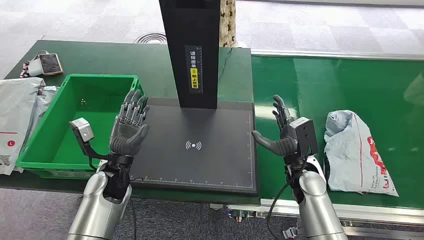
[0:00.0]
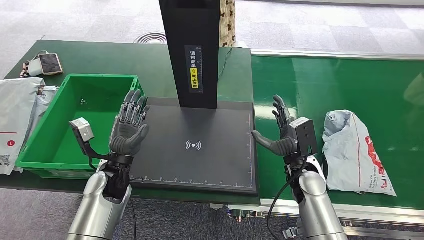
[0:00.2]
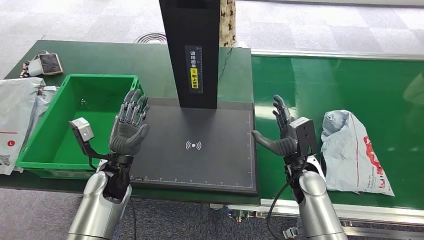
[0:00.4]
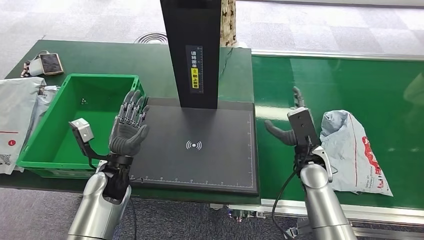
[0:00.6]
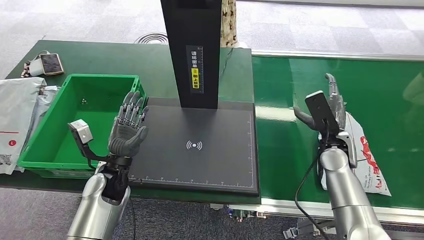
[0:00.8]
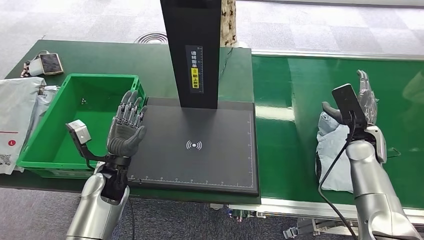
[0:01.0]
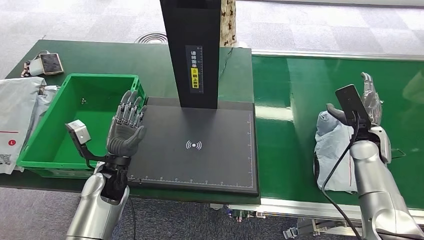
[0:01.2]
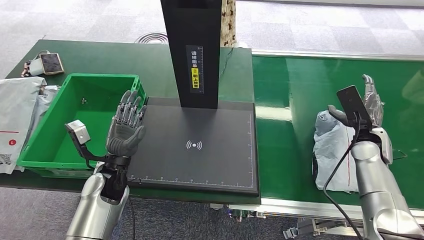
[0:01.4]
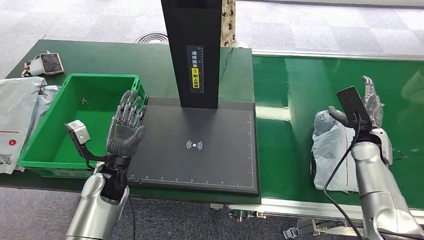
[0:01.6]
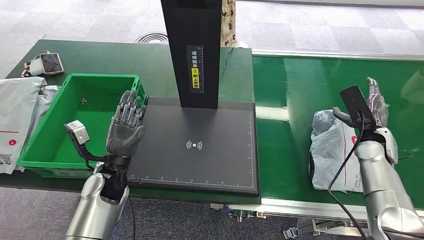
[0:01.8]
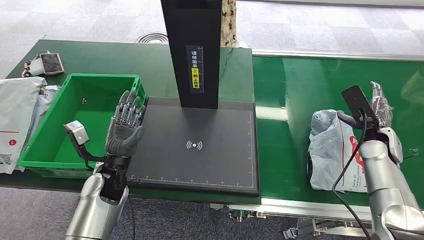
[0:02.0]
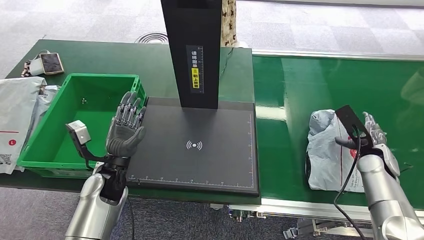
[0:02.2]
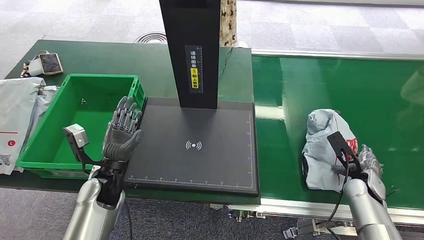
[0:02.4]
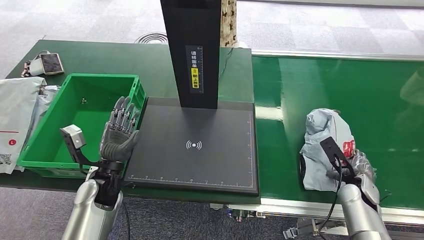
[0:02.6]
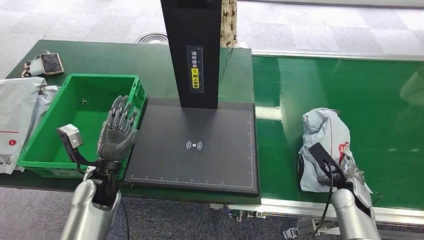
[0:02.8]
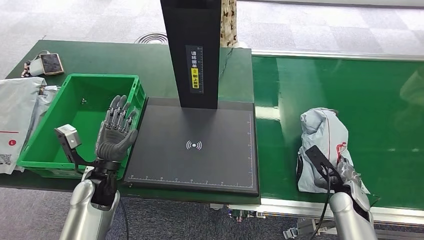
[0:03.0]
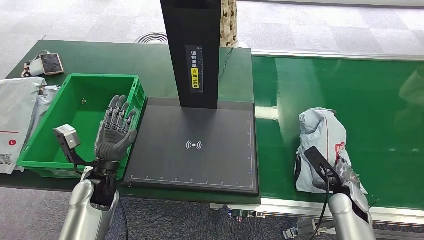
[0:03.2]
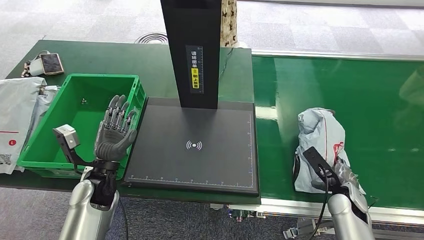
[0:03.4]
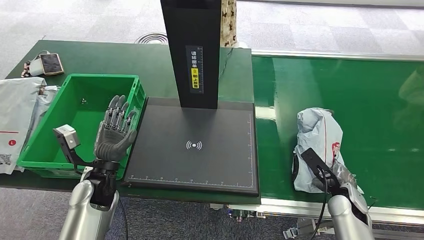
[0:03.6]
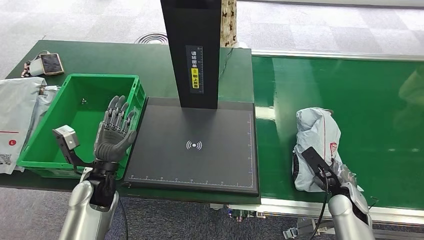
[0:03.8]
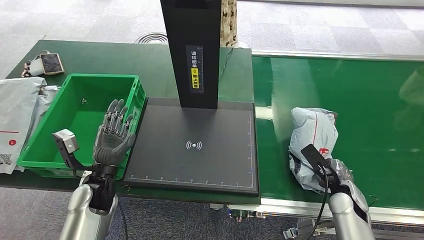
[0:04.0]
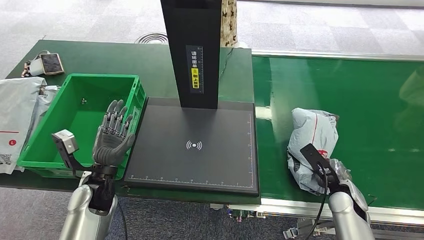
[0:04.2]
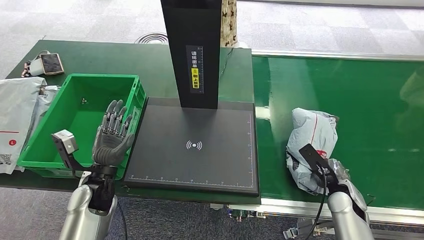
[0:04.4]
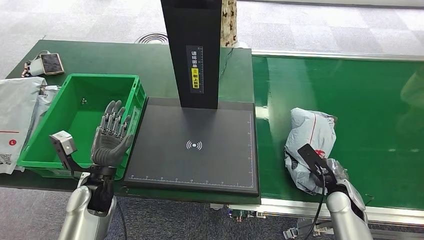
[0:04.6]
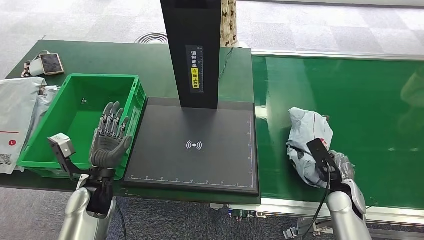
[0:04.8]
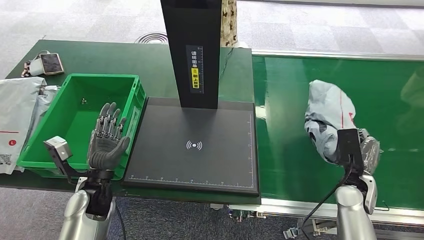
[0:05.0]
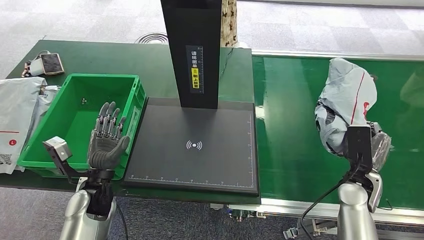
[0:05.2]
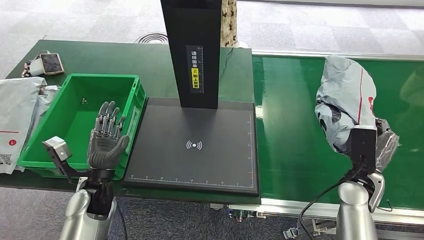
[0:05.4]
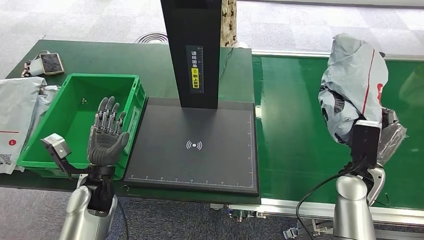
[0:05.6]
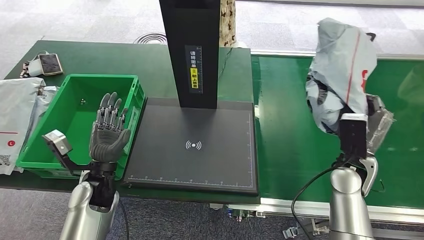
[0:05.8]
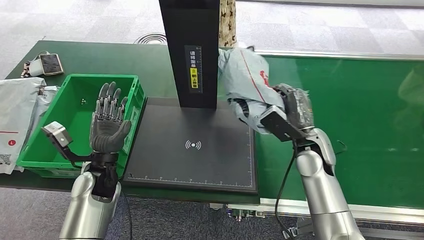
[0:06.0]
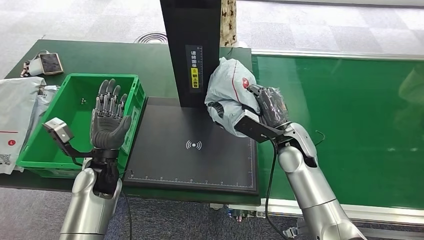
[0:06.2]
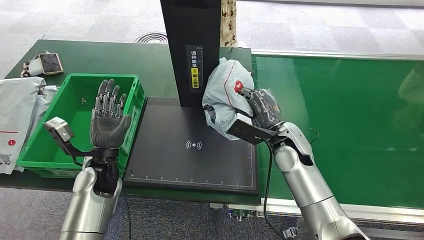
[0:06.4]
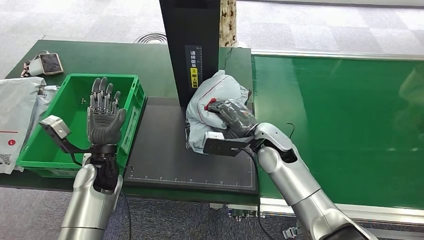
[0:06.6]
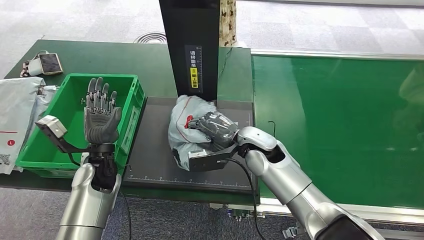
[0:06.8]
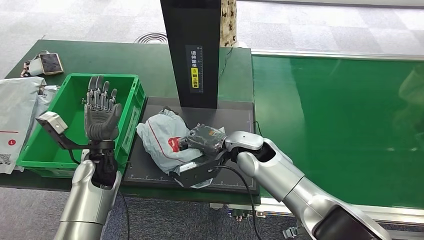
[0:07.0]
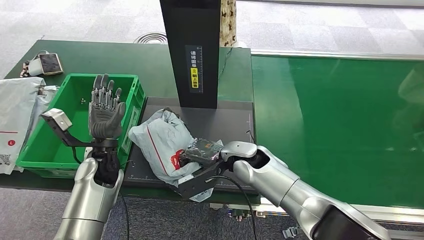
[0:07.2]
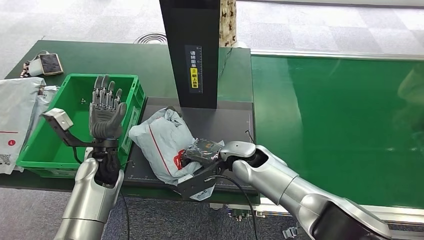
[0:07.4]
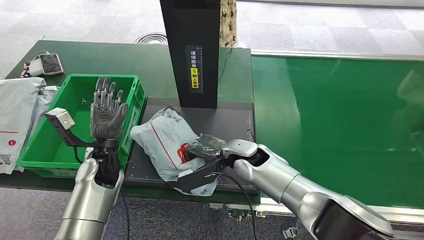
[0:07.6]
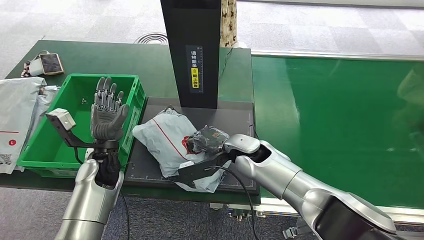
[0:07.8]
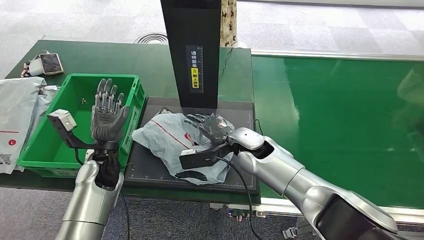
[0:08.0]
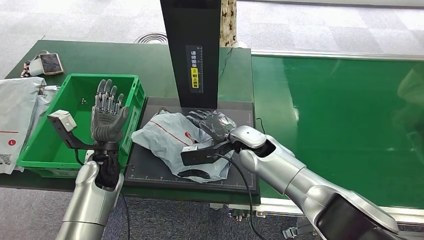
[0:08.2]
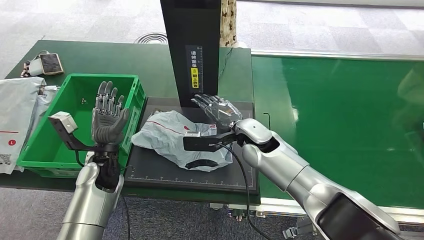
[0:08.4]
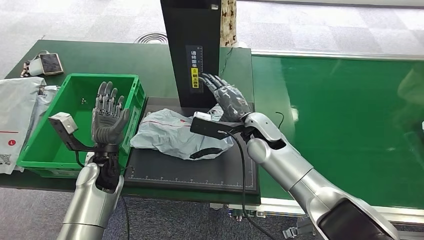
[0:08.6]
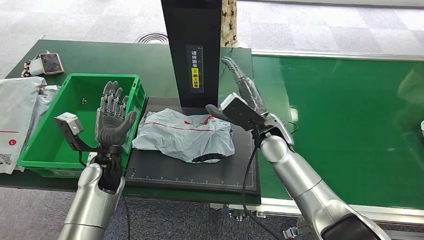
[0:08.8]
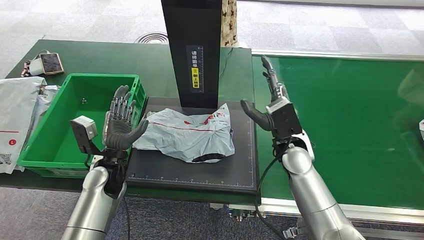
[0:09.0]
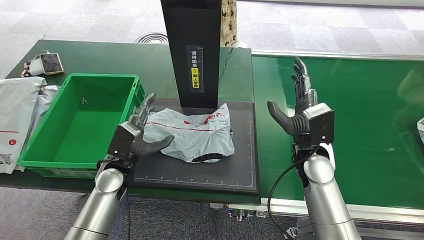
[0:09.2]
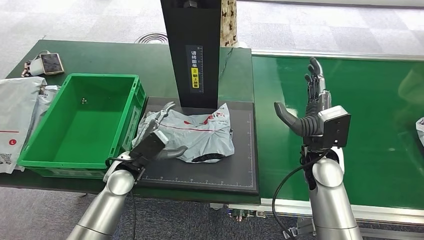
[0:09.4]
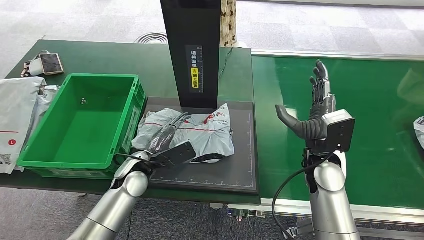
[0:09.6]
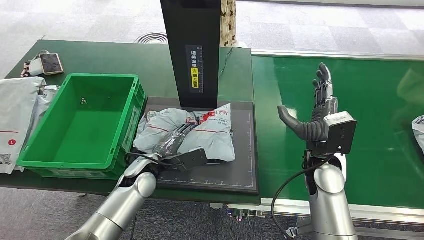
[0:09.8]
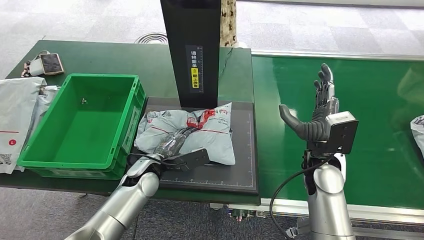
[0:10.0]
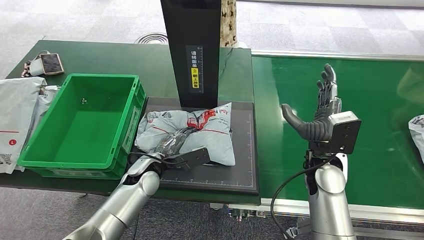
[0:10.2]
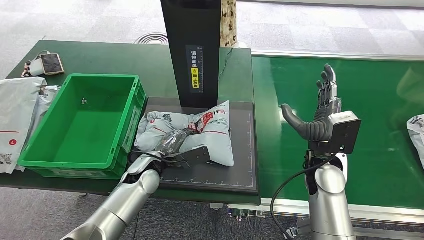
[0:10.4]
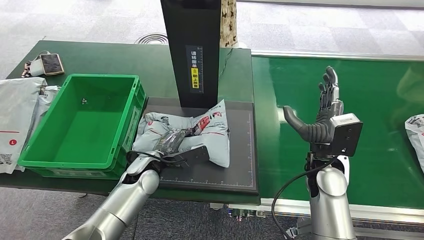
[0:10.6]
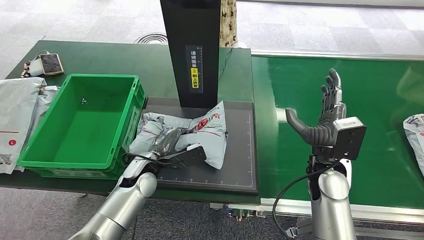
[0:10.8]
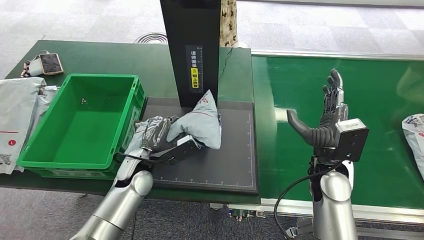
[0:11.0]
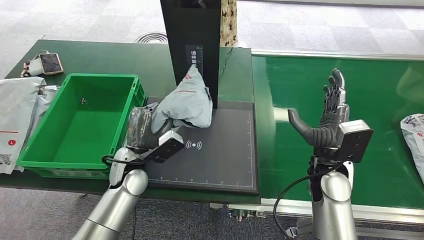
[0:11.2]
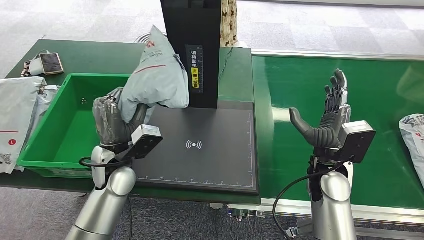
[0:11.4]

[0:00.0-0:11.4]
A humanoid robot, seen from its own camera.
Step, 0:00.0 to 0:05.4: Pick up the package from the conveyor belt.
Step, 0:05.6 to 0:08.6: Place the package onto the inbound machine.
Step, 0:09.0 to 0:11.4: Pick up the package from the inbound machine.
0:01.4 to 0:02.8: The right hand heads downward and backward, covering approximately 15 cm.
0:02.8 to 0:04.2: The hands move only a little.
0:04.2 to 0:05.6: The right hand is displaced upward by some 10 cm.
0:07.2 to 0:08.6: The right hand travels upward by some 5 cm.

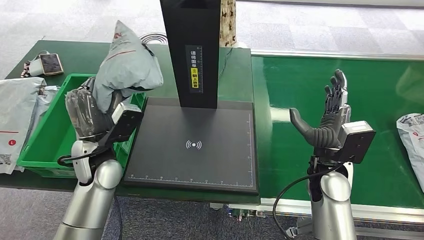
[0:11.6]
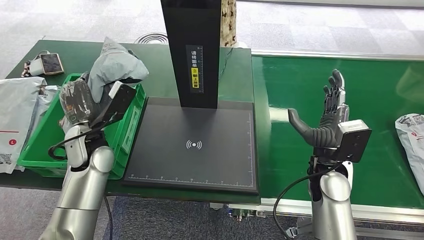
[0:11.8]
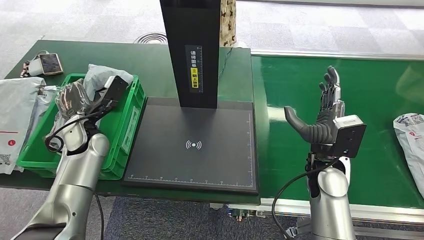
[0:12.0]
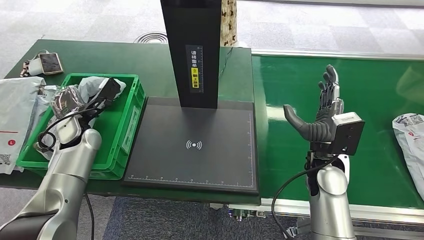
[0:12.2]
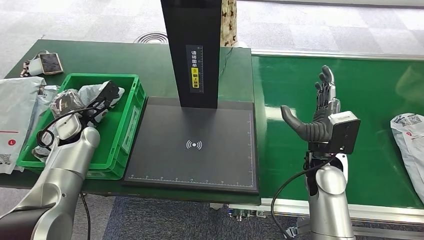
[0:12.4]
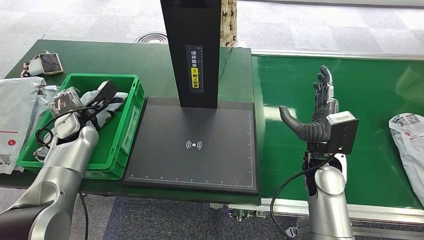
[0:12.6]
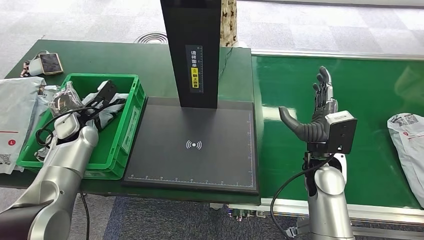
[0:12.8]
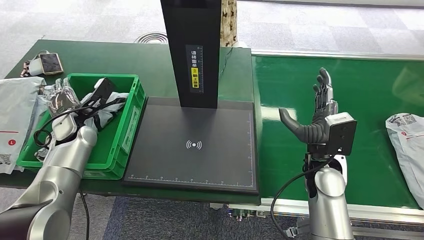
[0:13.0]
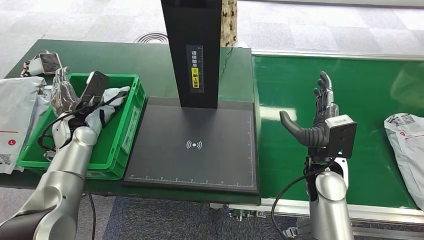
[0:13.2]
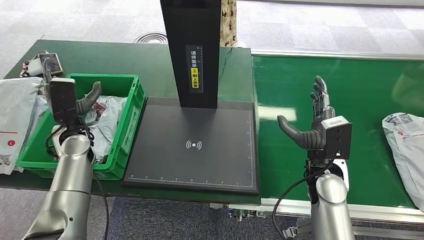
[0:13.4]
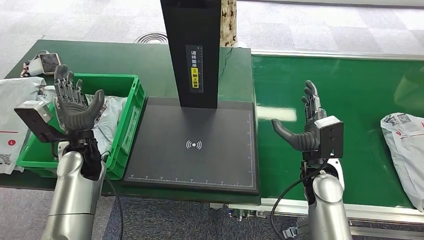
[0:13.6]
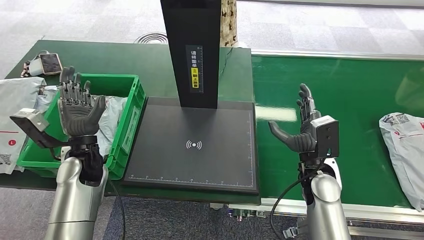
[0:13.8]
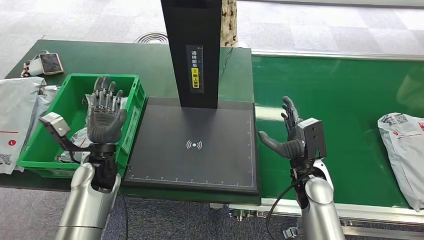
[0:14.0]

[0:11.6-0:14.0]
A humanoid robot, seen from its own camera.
Step, 0:11.6 to 0:14.0: Place the package into the parcel locker.
0:12.8 to 0:14.0: The left hand is displaced to the right and backward by approximately 15 cm; the right hand heads downward, covering about 5 cm.

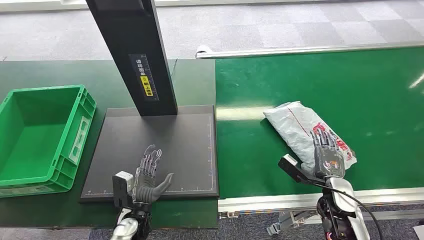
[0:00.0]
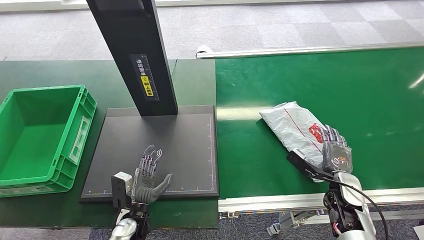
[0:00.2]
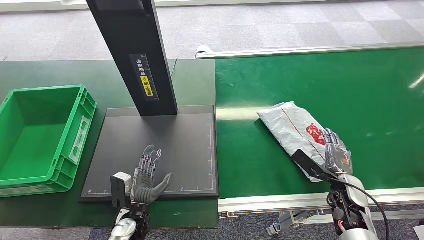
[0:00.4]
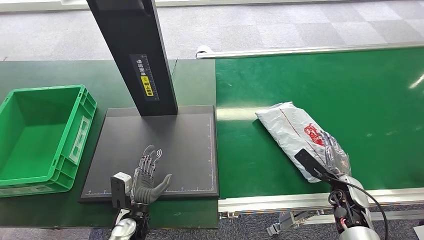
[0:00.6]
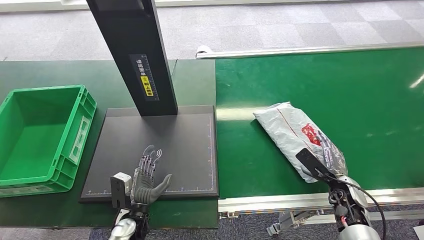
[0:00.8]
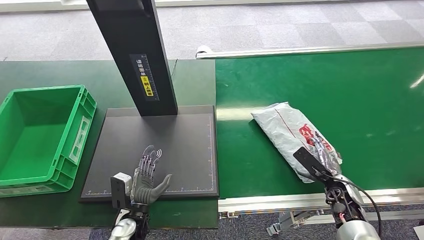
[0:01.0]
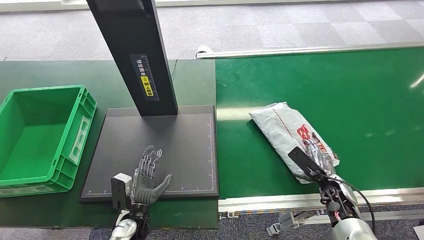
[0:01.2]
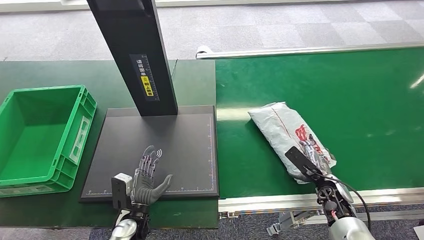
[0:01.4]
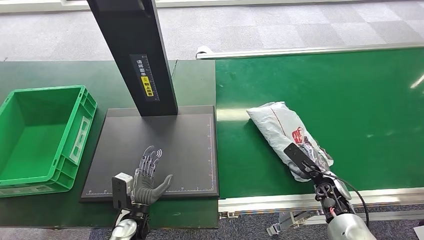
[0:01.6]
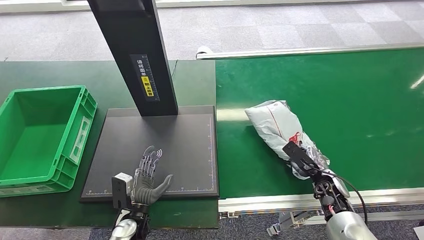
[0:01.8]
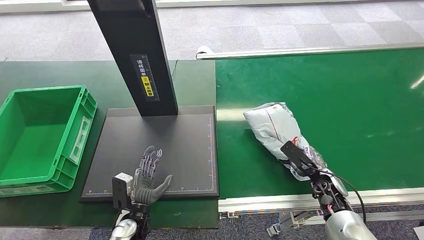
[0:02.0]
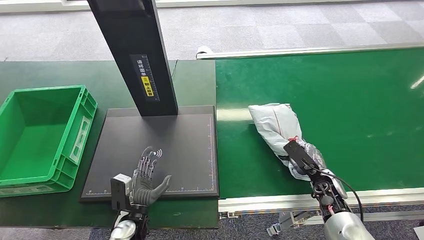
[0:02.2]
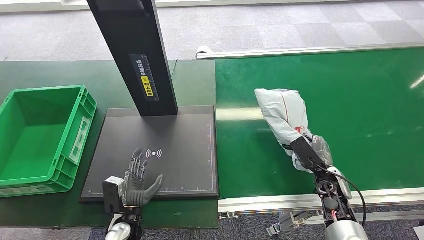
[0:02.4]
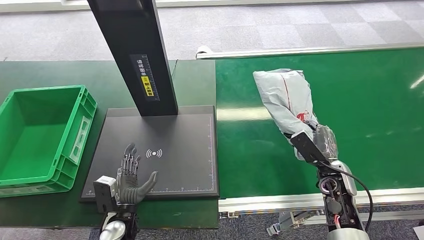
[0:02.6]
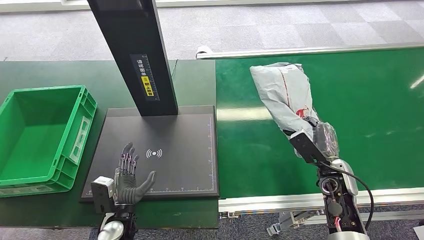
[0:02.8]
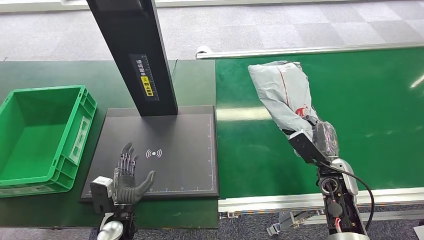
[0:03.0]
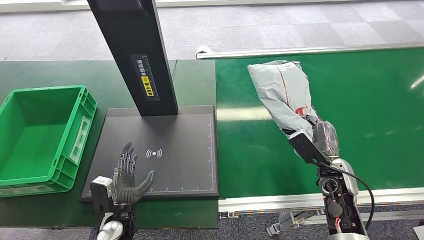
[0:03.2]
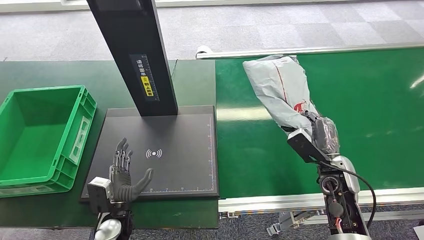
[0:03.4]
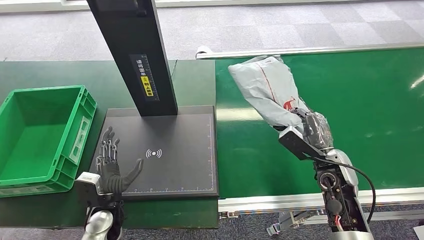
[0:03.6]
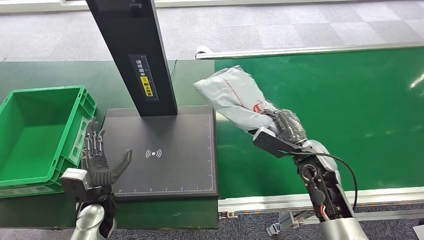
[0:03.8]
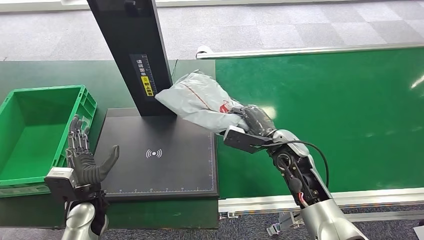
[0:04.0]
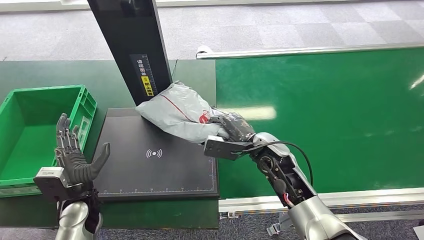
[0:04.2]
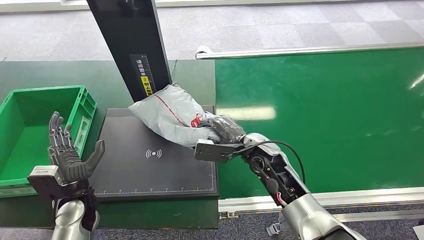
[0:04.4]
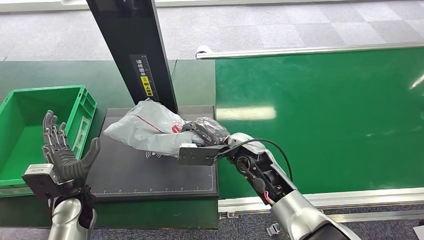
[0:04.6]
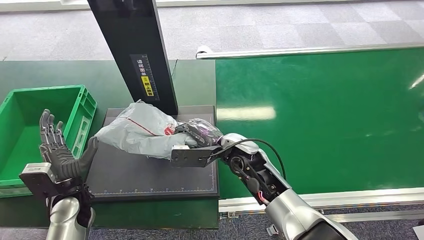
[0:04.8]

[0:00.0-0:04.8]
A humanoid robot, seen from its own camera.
Step, 0:00.0 to 0:03.0: Pick up the package from the conveyor belt.
0:01.6 to 0:03.2: The right hand moves upward, about 10 cm.
